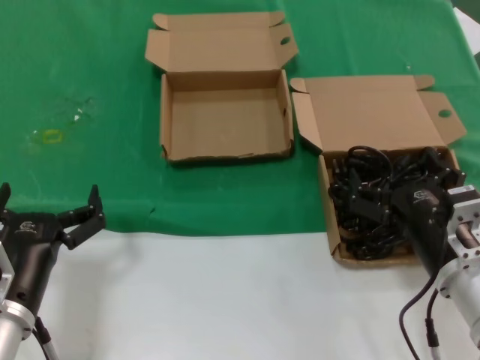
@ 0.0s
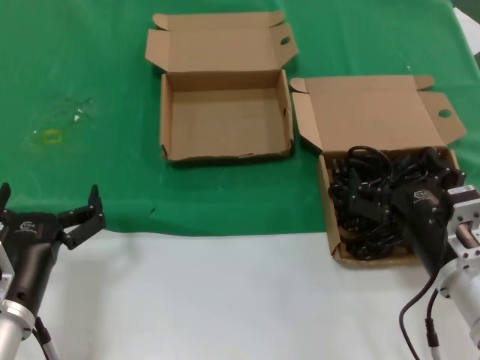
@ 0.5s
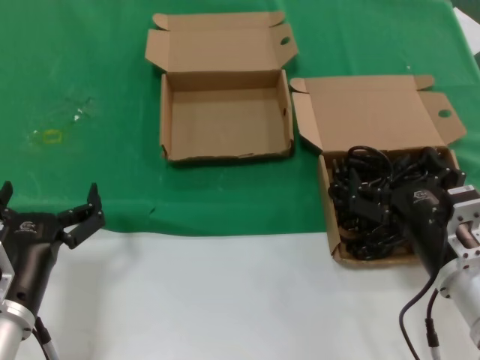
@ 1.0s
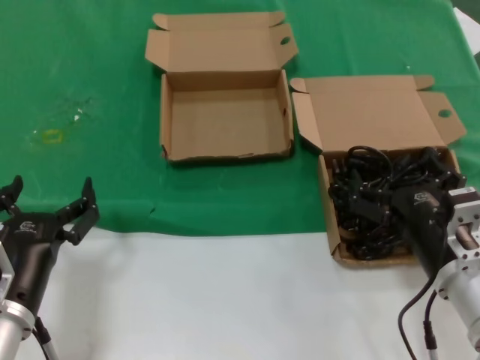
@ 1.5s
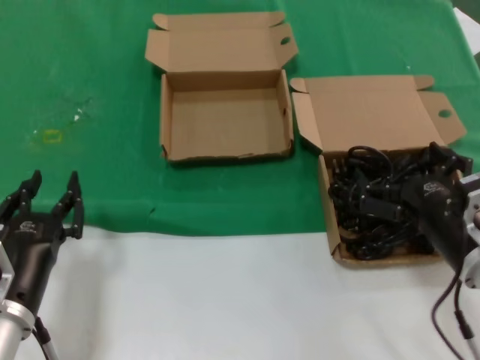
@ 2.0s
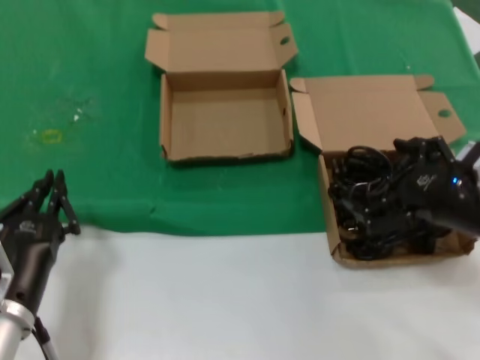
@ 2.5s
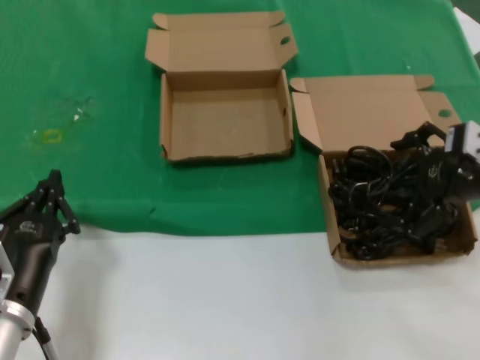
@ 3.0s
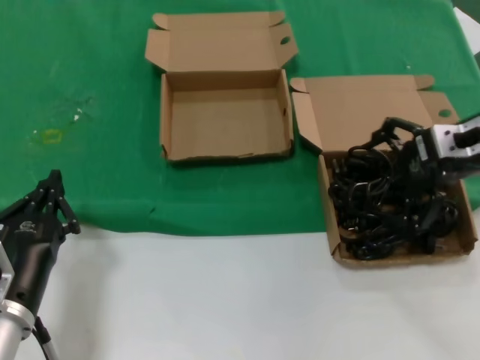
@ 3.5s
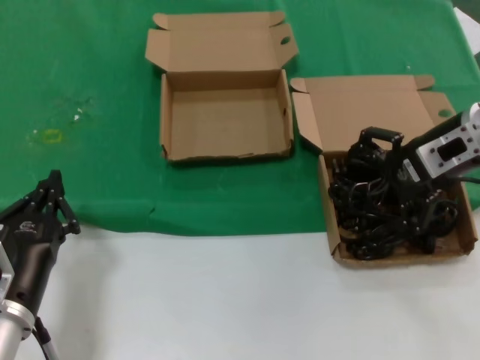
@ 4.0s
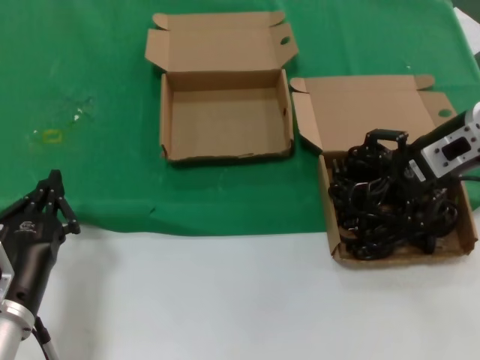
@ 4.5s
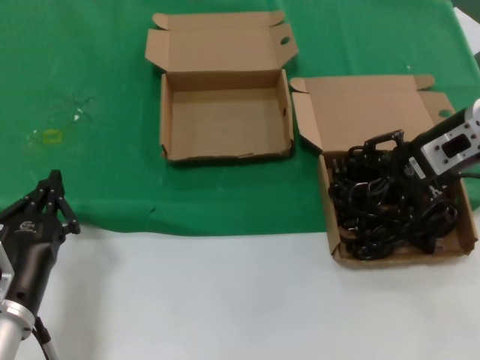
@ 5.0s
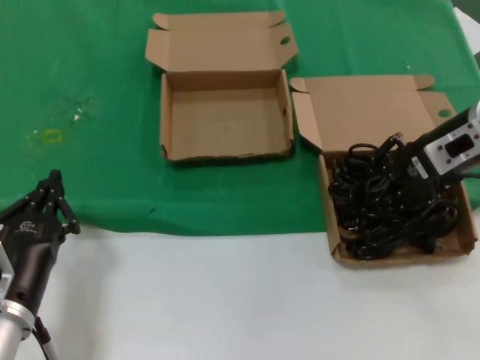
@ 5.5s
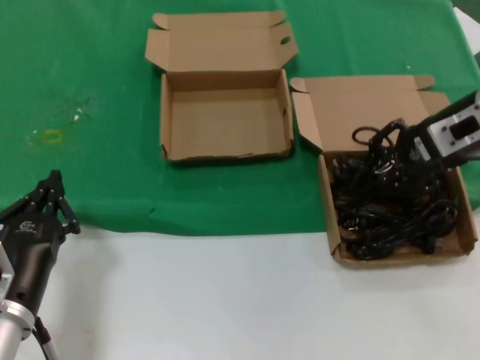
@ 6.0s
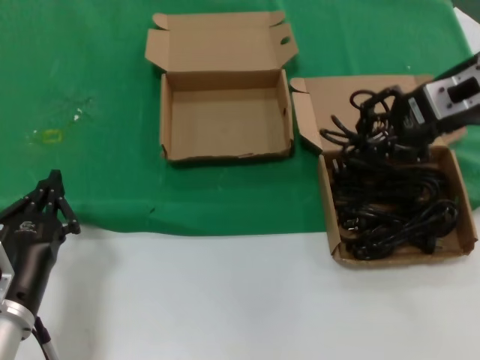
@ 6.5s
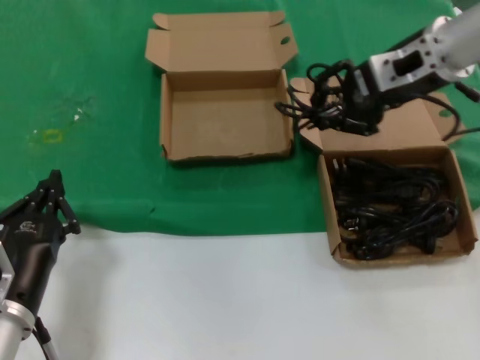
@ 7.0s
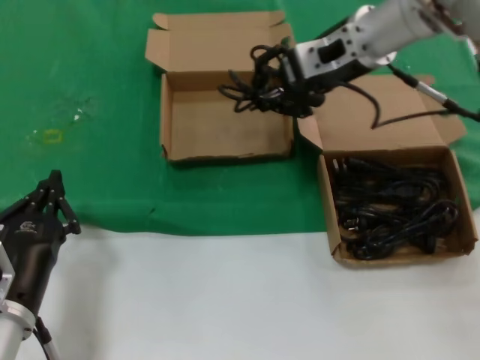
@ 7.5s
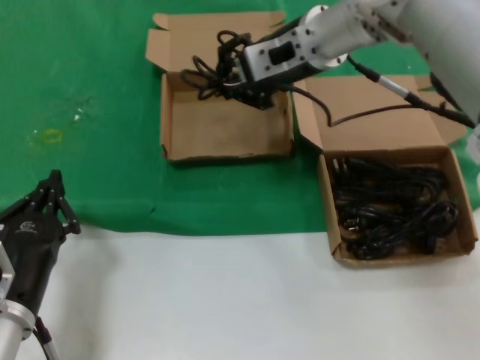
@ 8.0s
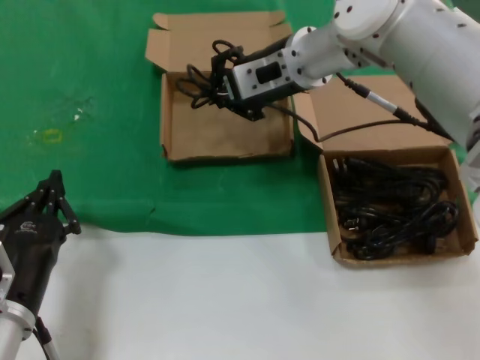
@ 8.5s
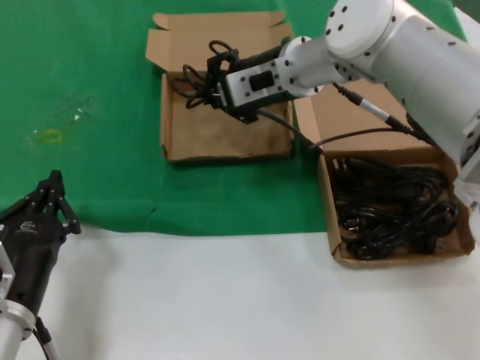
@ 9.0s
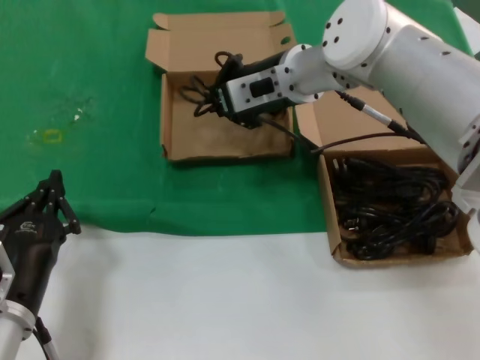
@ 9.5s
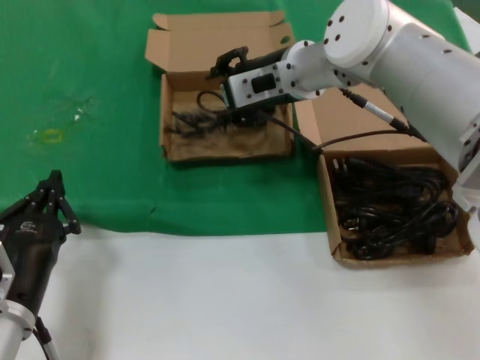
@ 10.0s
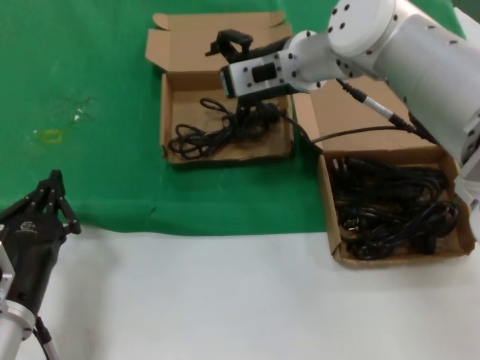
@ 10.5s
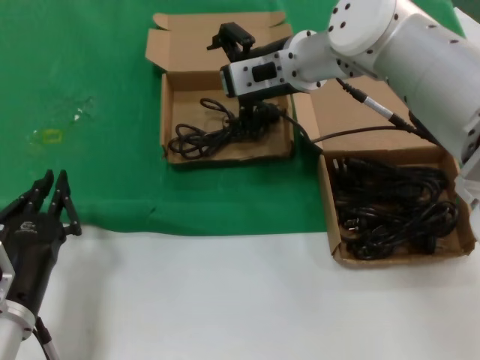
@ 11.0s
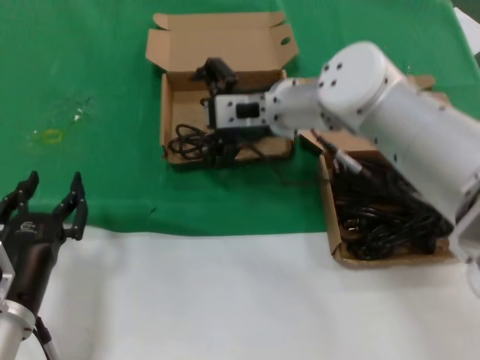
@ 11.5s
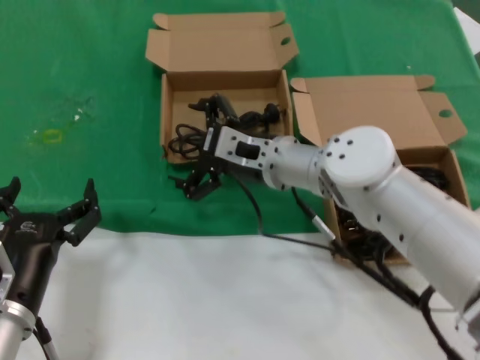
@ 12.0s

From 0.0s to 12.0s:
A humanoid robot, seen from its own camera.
Task of the whole recording: take the parts from the box containing them and put them into an empty box.
Step, from 0.0s to 5.5s: Grasp the data cable.
Step, from 6.0s to 9.5s: Place the data cable in the another box.
From 0.0s to 2.0s: The hands stay close to where they were, moving slightly.
From 2.0s to 4.0s: The right hand is displaced forward and upward by roughly 25 cm.
From 4.0s to 6.0s: The hands stay close to where they were, moving slightly.
From 6.0s to 8.0s: The right hand shifts approximately 20 cm to the left.
From 8.0s to 10.0s: The right hand moves downward, about 5 cm.
From 10.0s to 12.0s: The right hand moves downward and backward, some 15 cm.

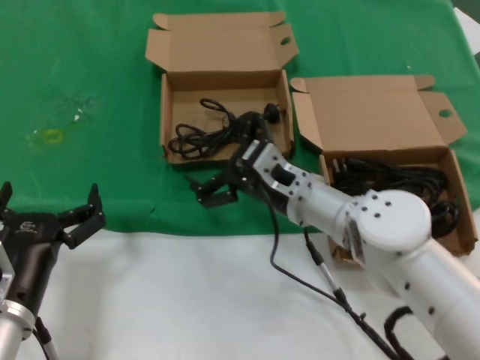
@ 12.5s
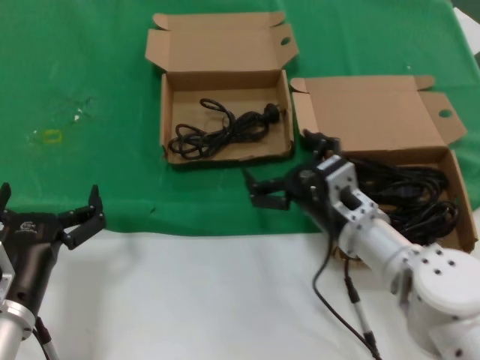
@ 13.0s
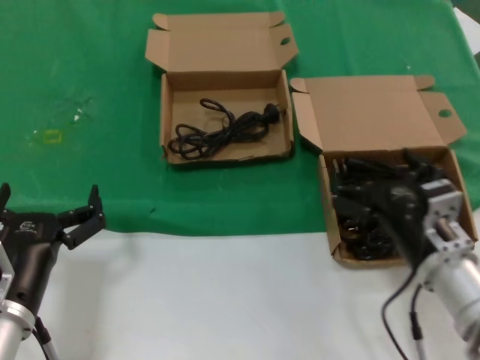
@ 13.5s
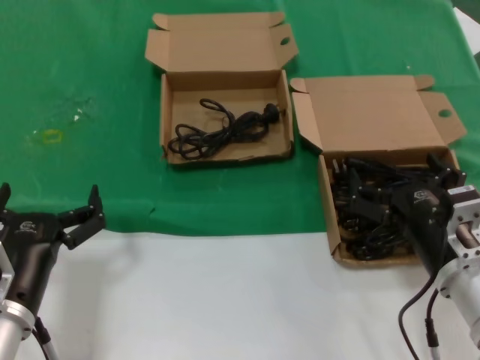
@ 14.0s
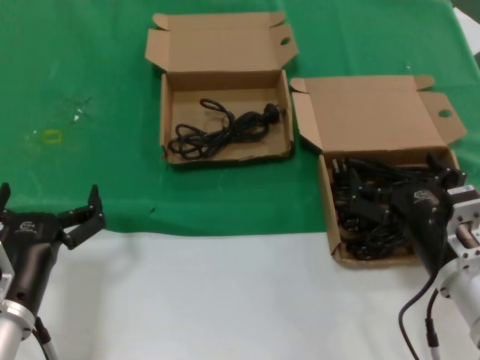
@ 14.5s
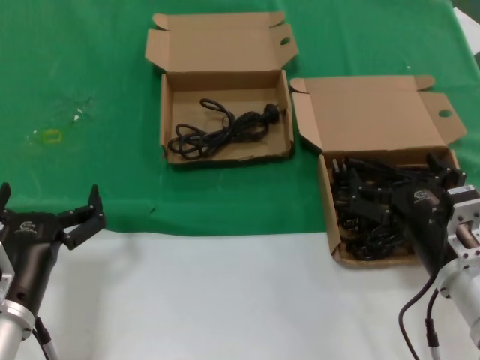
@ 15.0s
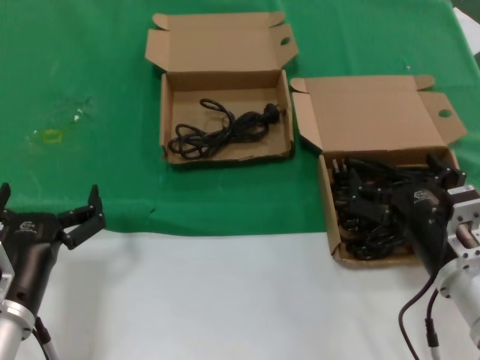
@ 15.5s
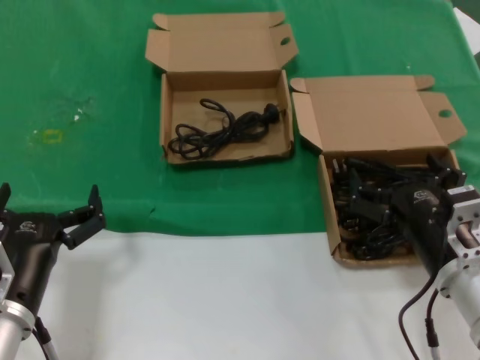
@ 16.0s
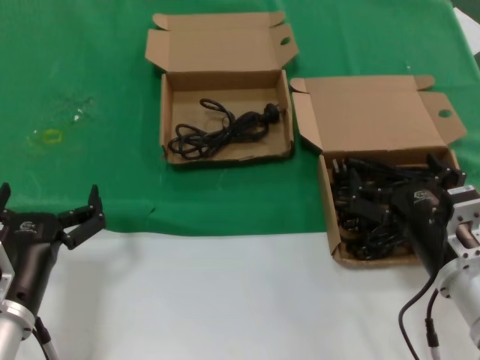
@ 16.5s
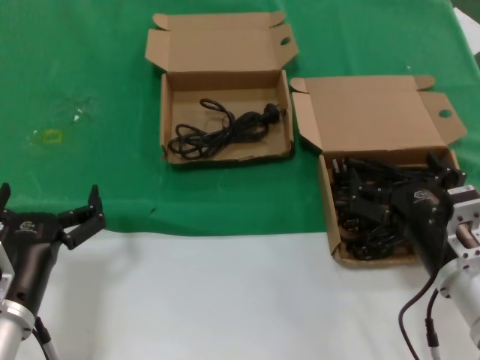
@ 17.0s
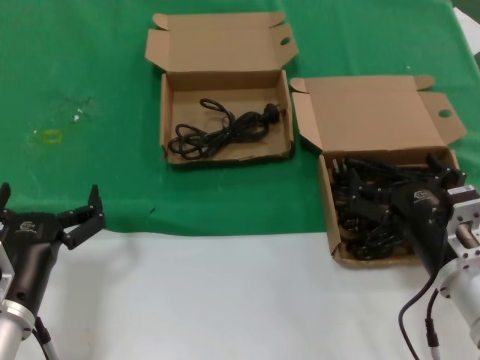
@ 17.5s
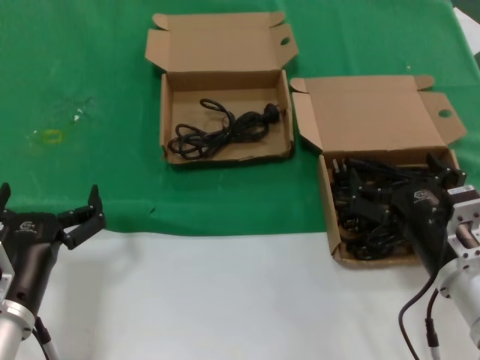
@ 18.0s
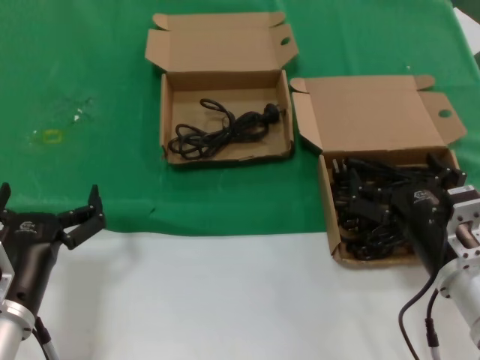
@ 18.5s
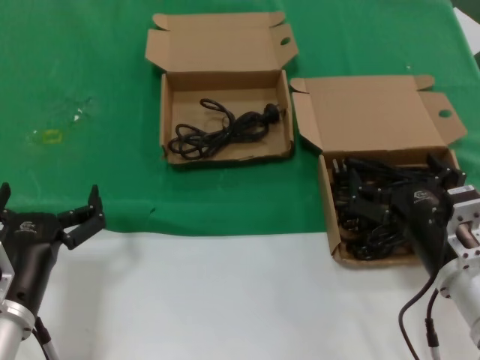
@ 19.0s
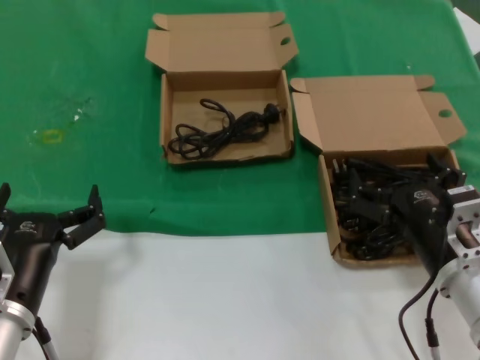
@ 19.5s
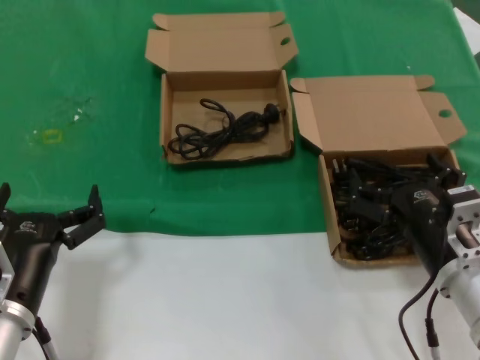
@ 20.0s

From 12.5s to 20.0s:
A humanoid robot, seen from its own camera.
Task of the whole recording: take the parts from the box containing them and put them into an empty box.
From 12.5s to 14.5s: The right hand is displaced backward and to the right by some 20 cm.
From 14.5s to 20.0s: The two hands keep their place.
